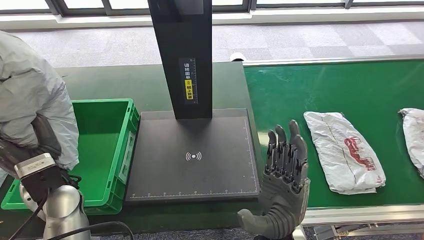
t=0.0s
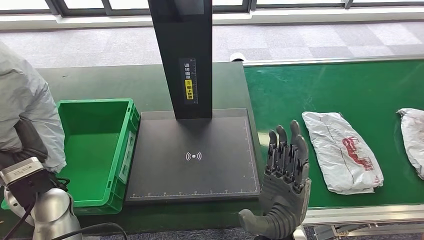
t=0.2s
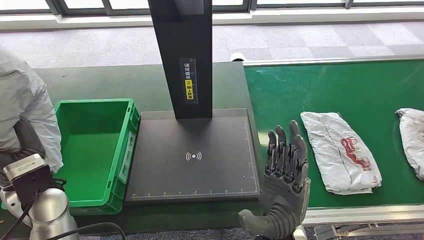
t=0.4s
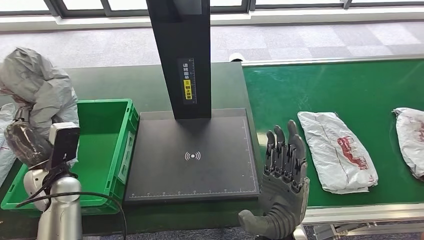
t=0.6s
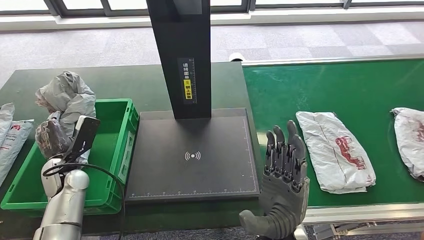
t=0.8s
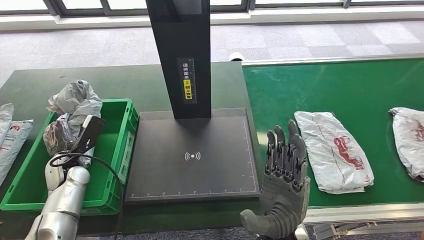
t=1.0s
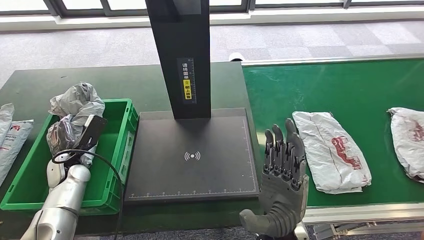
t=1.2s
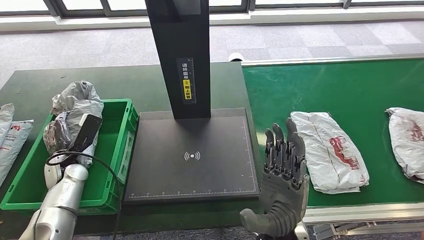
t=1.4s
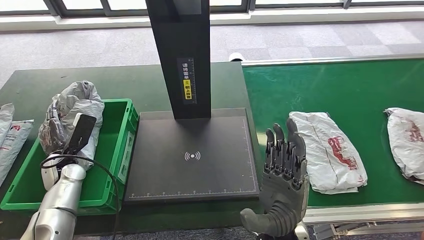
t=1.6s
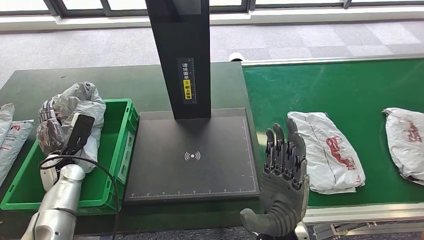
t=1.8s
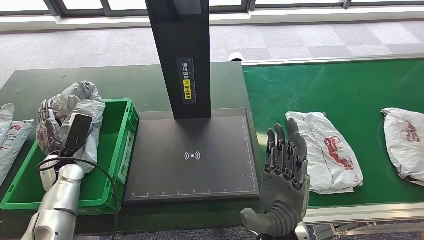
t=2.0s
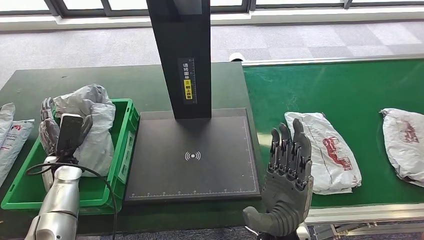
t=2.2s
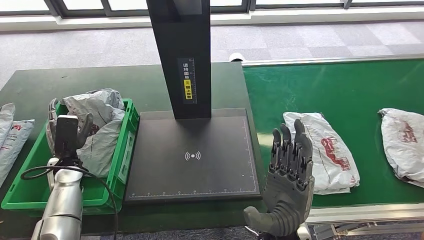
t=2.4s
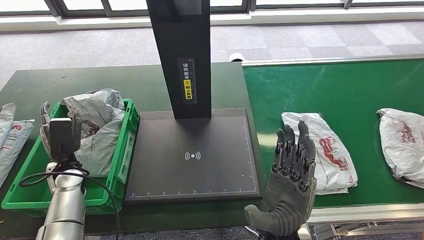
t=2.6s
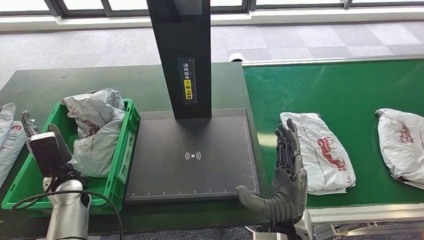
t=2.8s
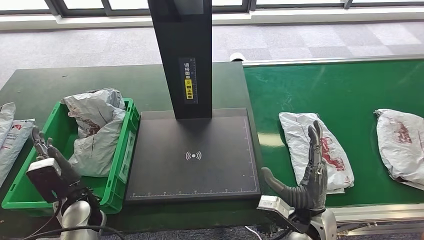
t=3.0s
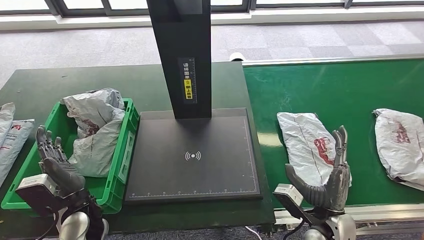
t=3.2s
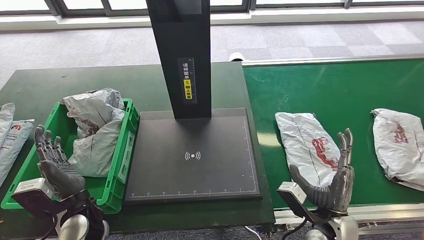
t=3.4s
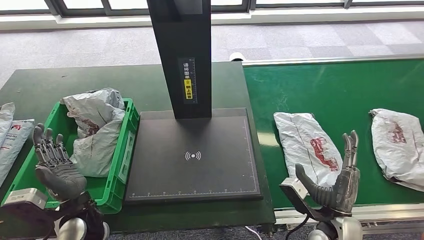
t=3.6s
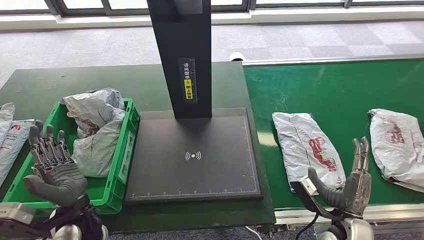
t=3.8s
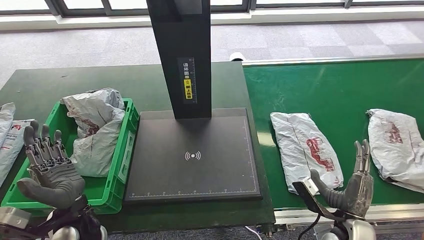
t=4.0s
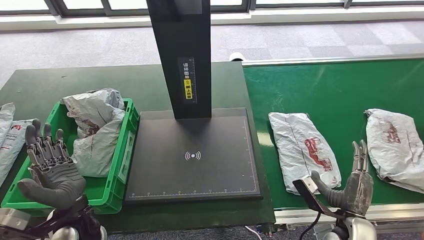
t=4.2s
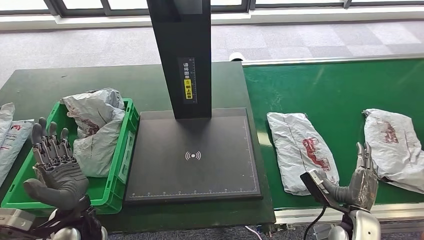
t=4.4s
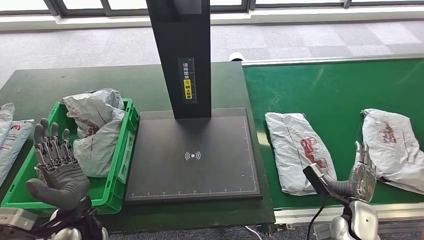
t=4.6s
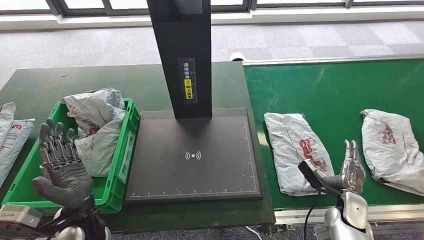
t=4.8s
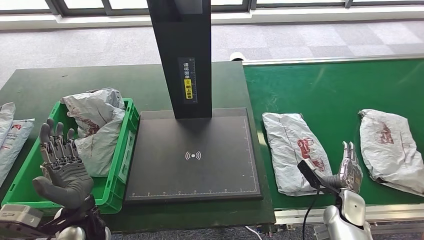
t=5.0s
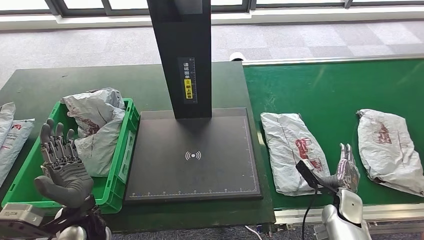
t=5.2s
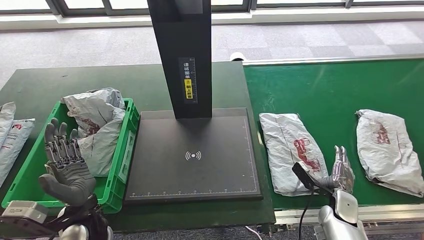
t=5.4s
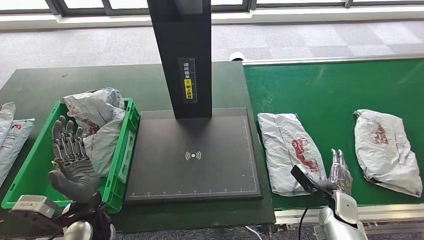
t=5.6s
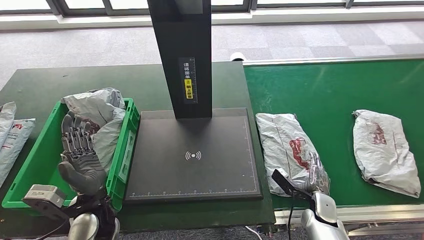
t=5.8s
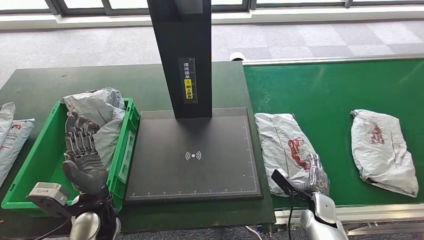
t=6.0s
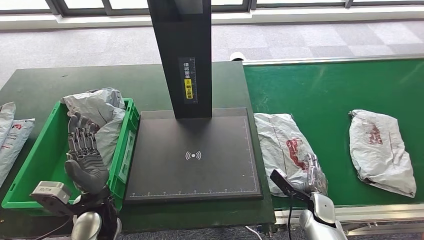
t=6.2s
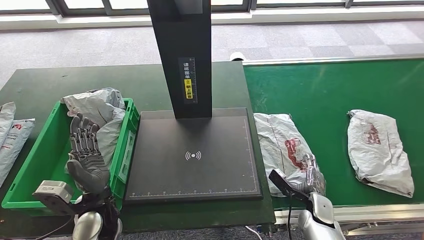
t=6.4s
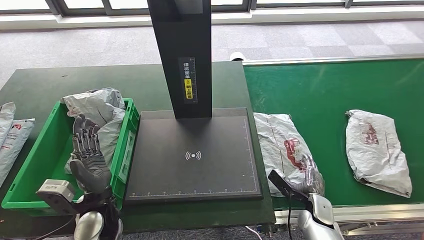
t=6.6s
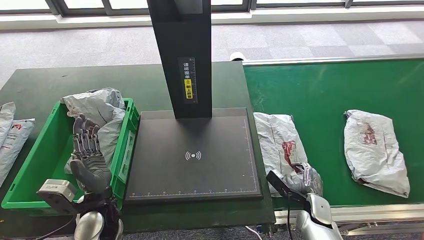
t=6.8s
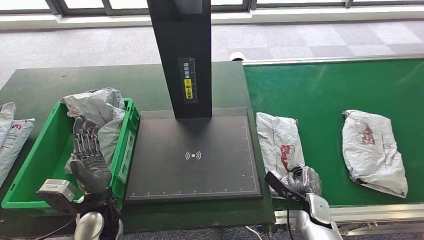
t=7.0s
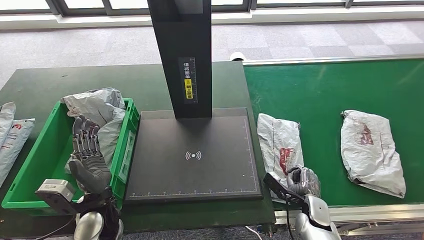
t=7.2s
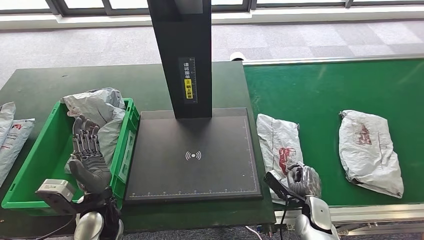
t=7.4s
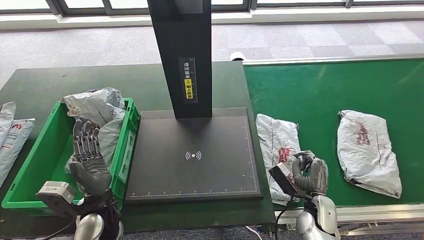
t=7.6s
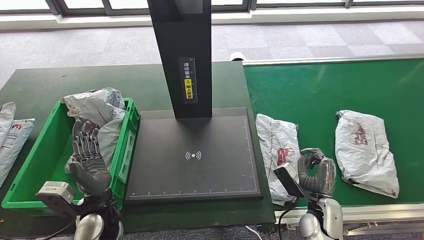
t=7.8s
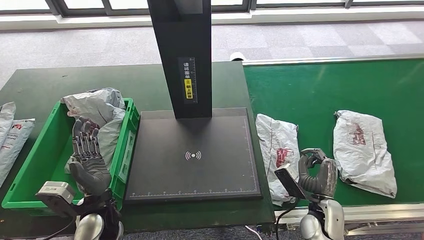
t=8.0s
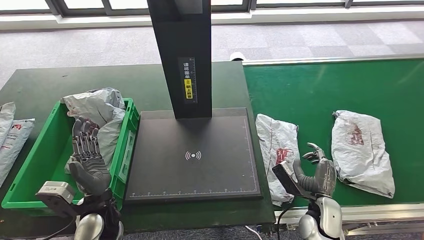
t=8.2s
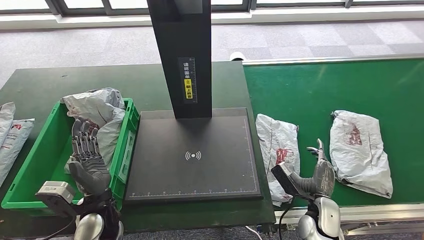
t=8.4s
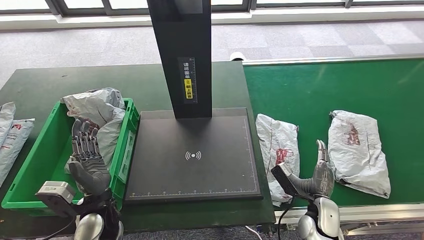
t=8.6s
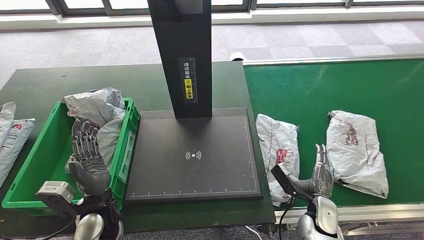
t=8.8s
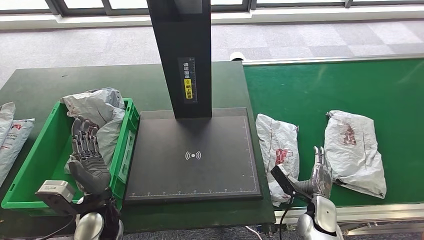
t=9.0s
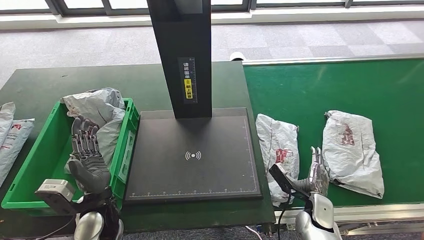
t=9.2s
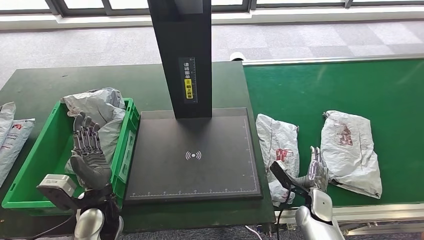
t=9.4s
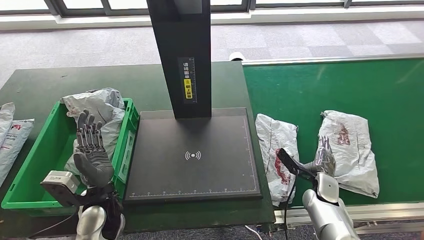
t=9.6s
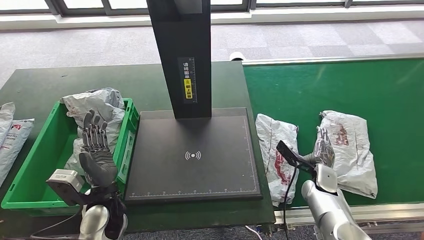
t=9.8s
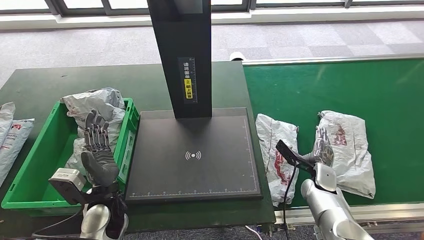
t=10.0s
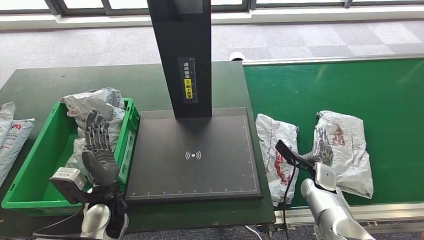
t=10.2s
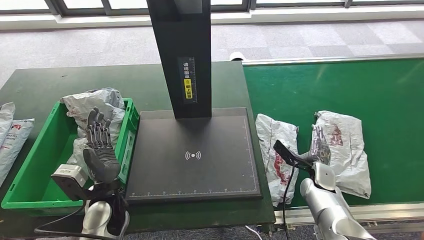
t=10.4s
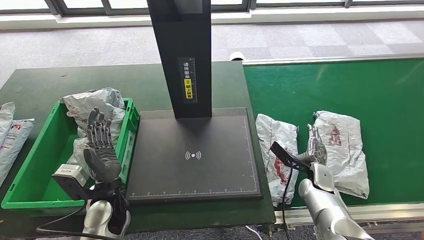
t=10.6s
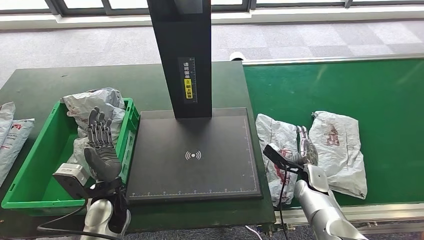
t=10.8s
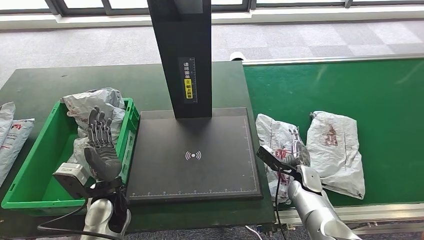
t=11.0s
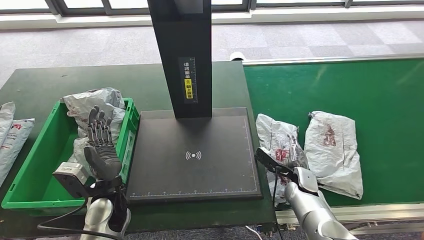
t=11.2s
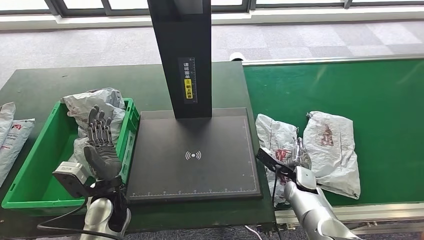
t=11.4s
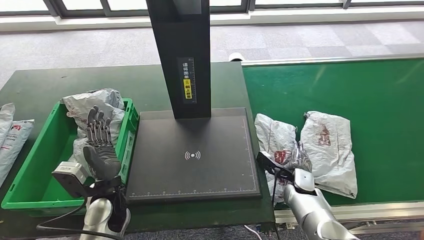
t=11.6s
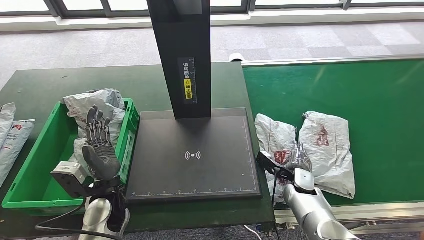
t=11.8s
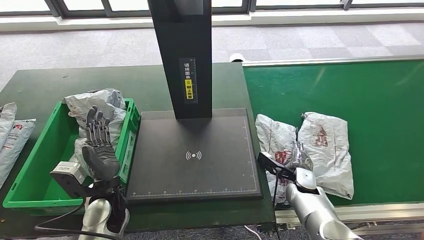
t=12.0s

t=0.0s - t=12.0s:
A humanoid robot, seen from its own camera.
Step, t=0.4s - t=2.2s: Put the parcel inside the courier box.
t=3.0s - t=4.4s: The left hand ends up about 5 cm from where it was, while the right hand goes some 15 cm to the right and downward.
t=4.4s - t=6.0s: The right hand moves downward and forward, roughly 10 cm.
t=7.6s - t=9.0s: There are only small adjustments of the hands.
t=9.0s - t=10.4s: The right hand is displaced forward by roughly 10 cm.
t=10.4s - t=12.0s: The right hand changes place by approximately 5 cm.

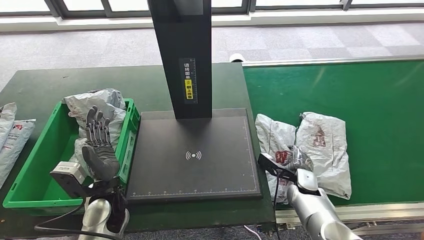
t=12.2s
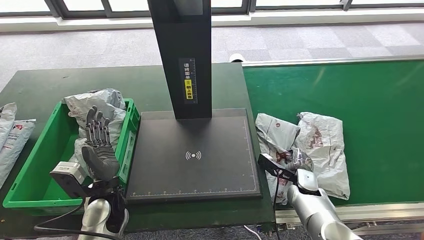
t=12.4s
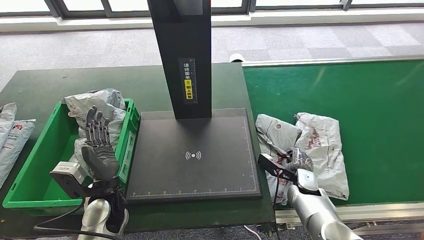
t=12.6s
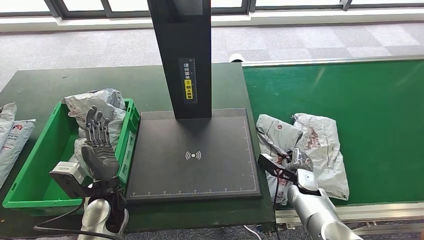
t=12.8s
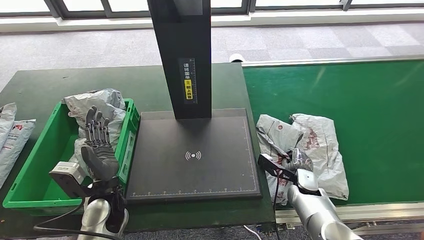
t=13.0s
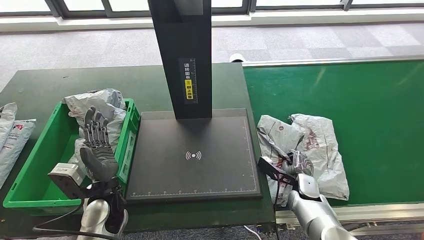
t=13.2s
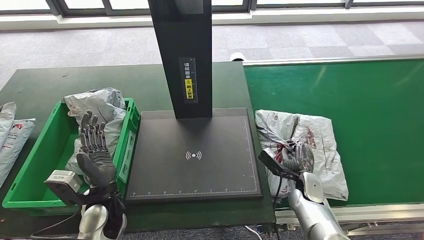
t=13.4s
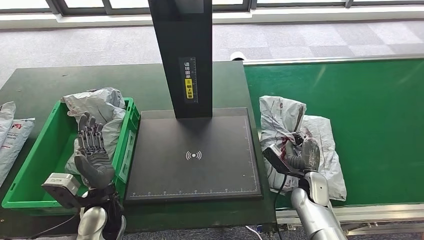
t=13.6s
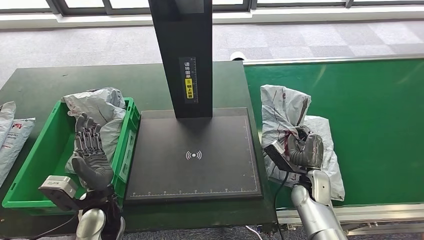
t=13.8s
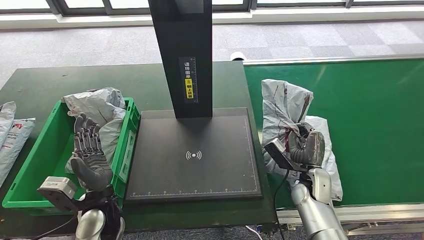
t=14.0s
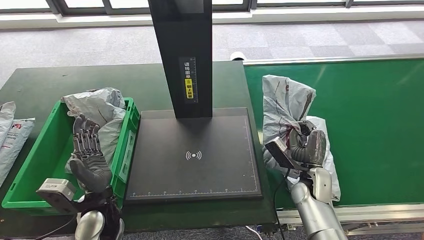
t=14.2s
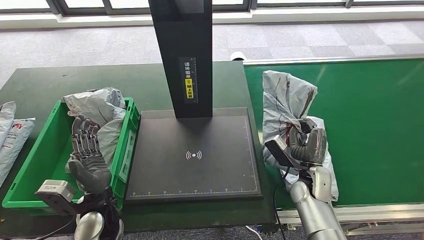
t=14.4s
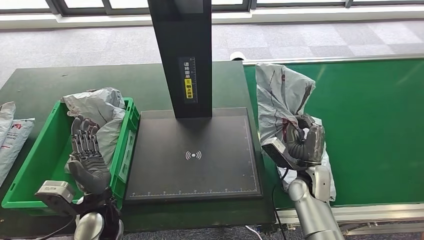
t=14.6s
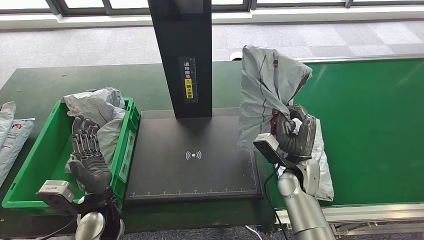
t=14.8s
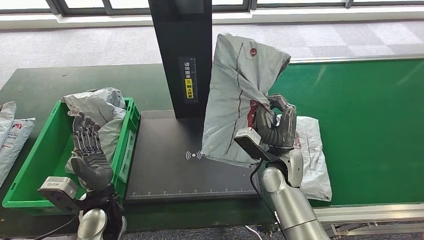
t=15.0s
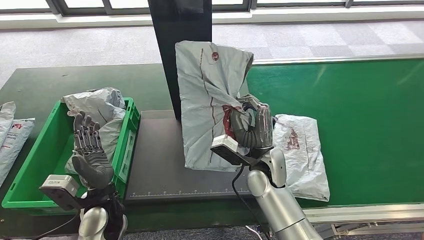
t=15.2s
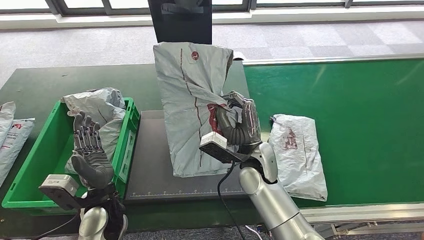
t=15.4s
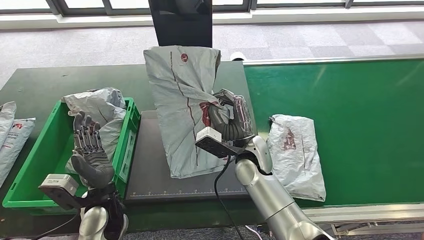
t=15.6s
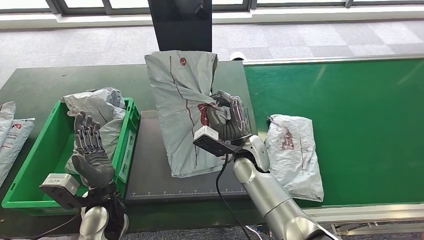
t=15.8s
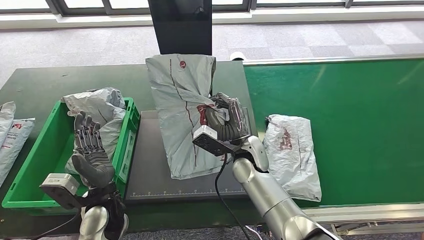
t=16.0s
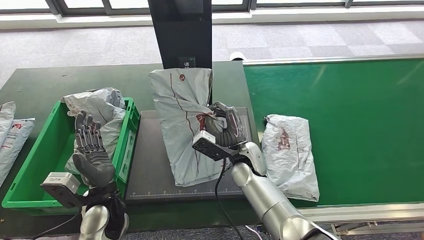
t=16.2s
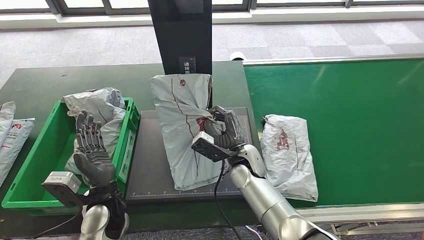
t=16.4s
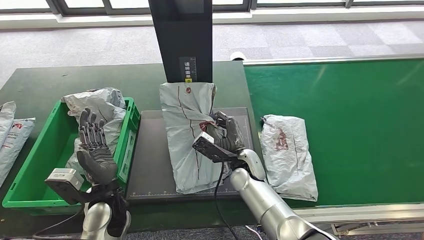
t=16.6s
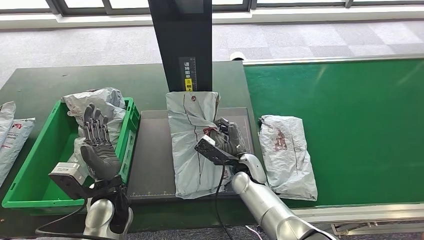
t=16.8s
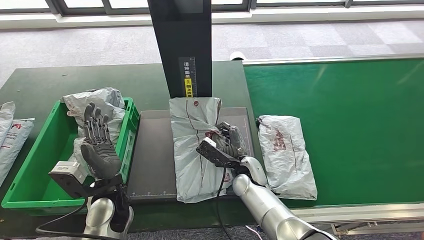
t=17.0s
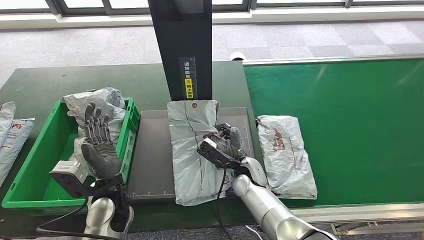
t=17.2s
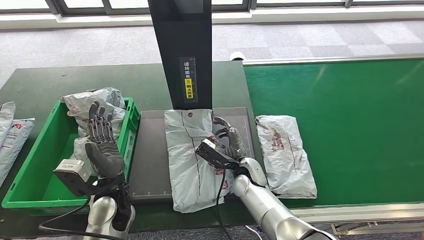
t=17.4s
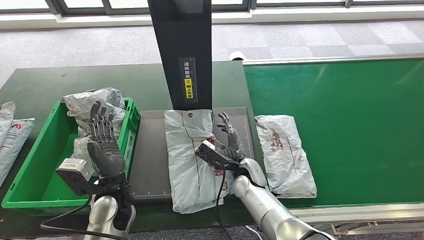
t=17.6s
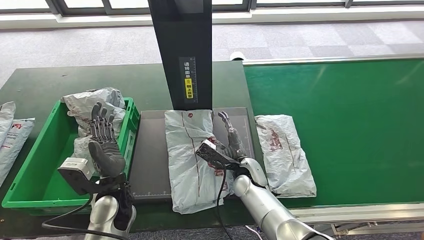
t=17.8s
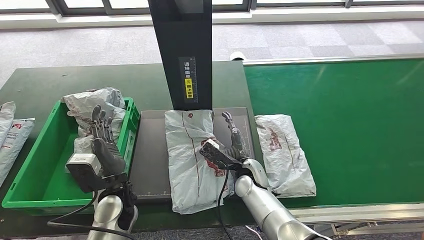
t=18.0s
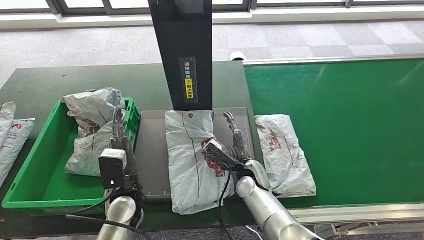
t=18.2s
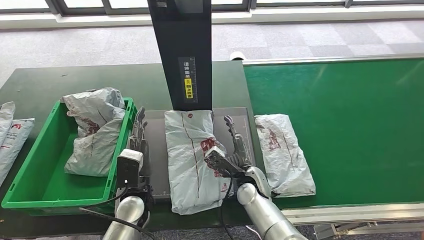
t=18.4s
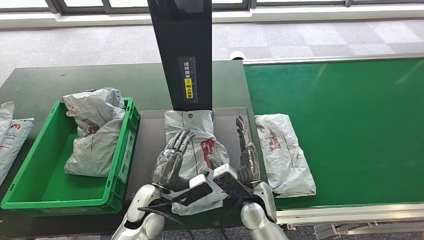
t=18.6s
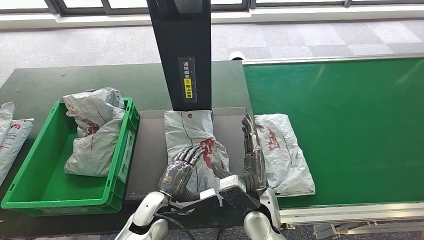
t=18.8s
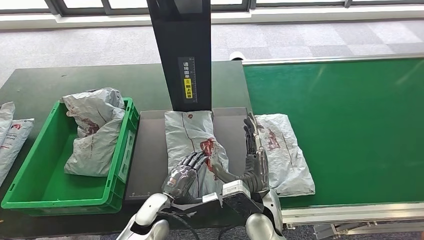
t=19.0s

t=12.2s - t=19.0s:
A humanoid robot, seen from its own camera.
Step, t=12.2s - t=15.4s: Pick up the parcel from the conveyor belt.
t=13.6s - t=15.0s: The right hand is displaced upward and to the left by roughly 15 cm.
t=16.2s - t=17.6s: The right hand moves downward, approximately 5 cm.
t=17.6s - t=19.0s: The left hand heads to the right and downward, covering some 10 cm, while the right hand is displaced backward by some 10 cm.
